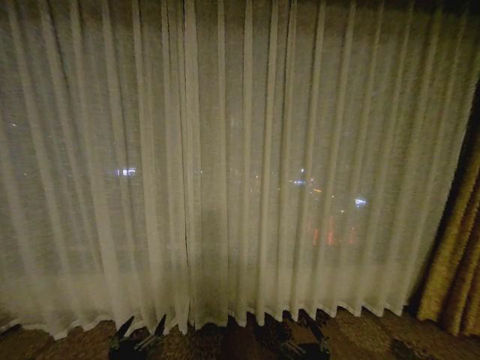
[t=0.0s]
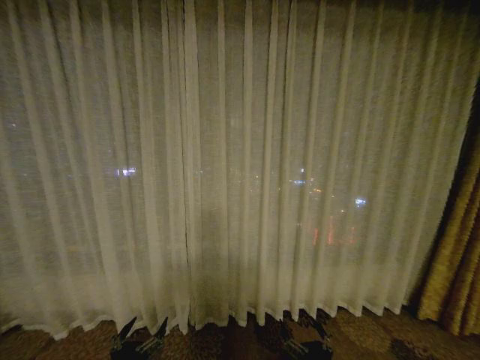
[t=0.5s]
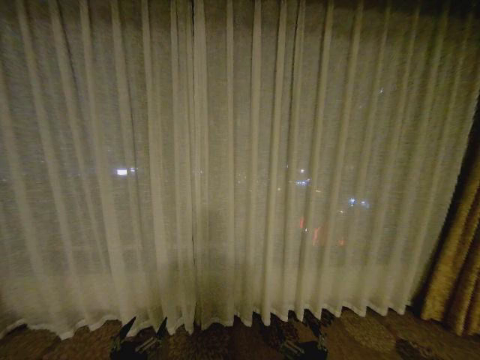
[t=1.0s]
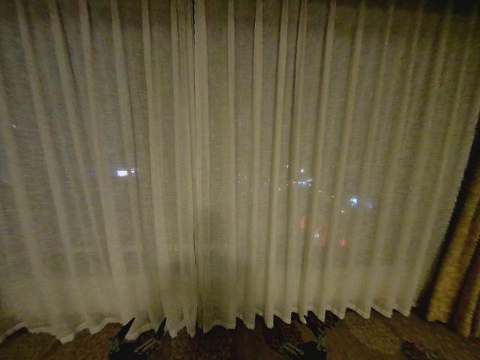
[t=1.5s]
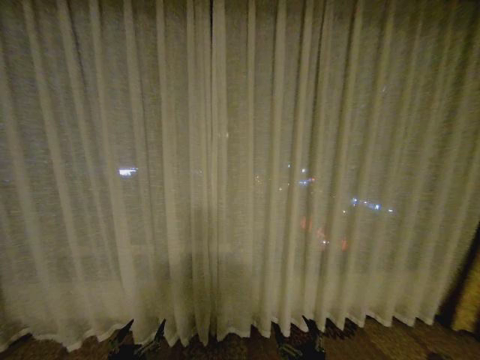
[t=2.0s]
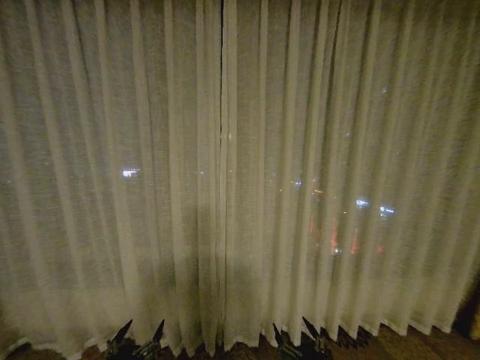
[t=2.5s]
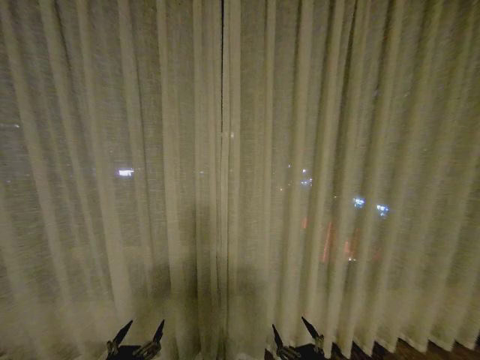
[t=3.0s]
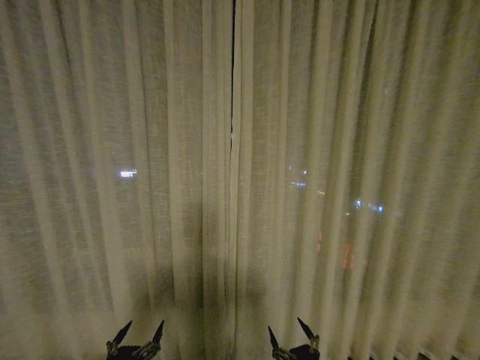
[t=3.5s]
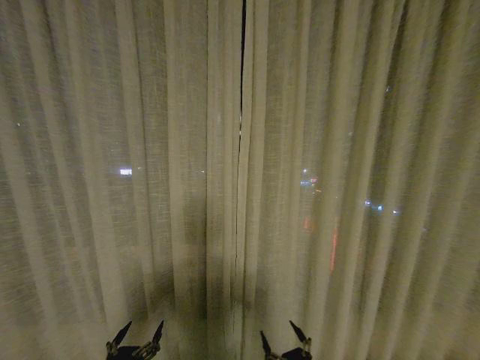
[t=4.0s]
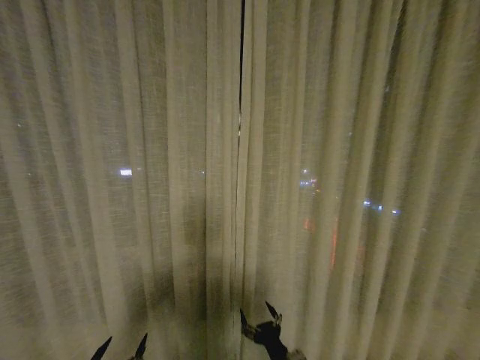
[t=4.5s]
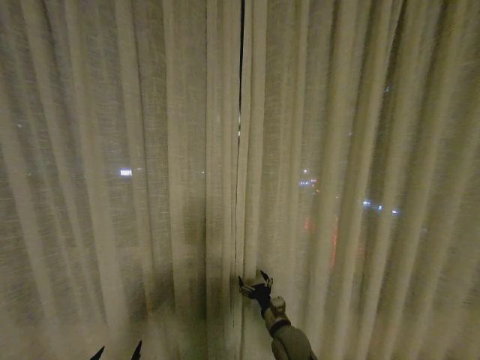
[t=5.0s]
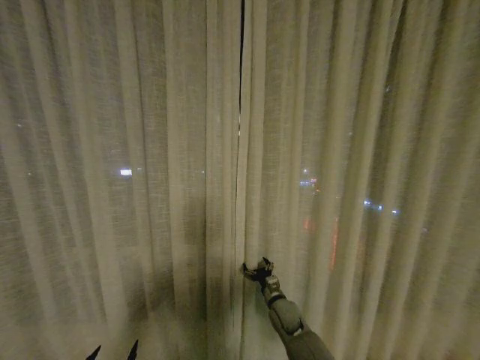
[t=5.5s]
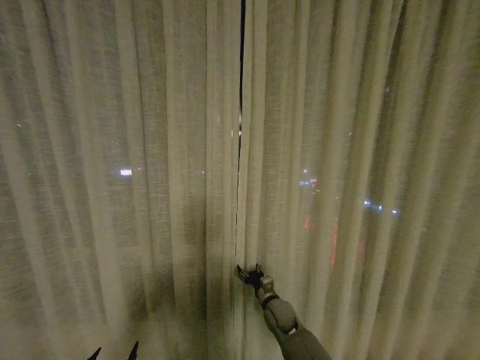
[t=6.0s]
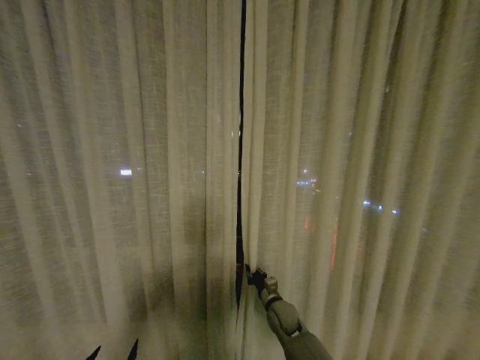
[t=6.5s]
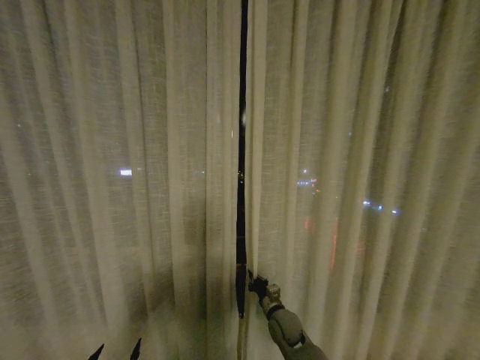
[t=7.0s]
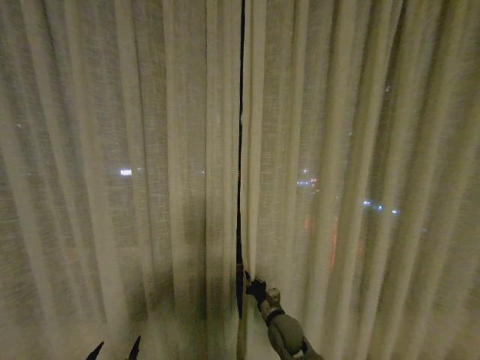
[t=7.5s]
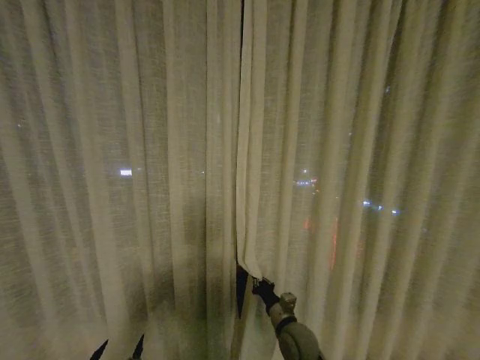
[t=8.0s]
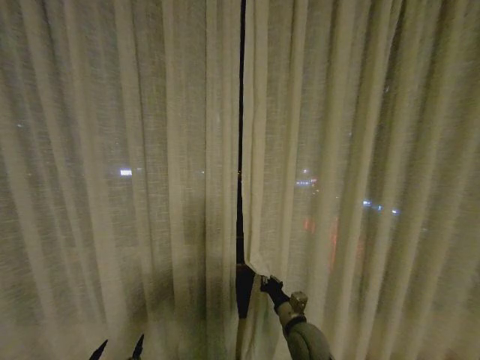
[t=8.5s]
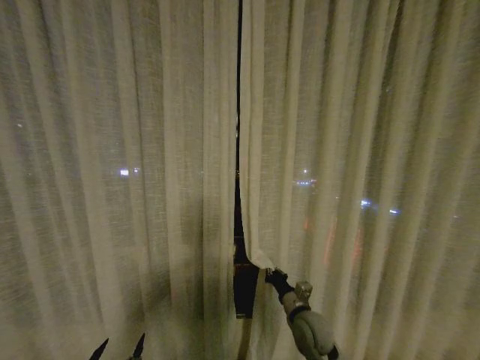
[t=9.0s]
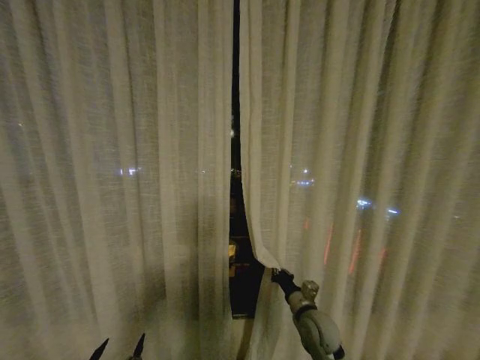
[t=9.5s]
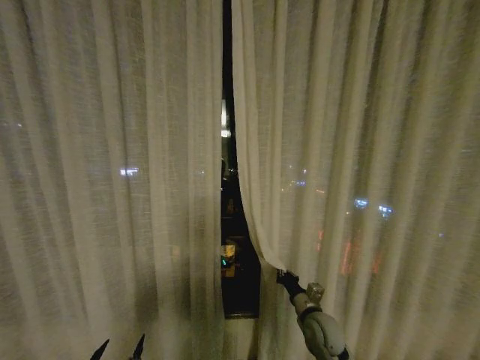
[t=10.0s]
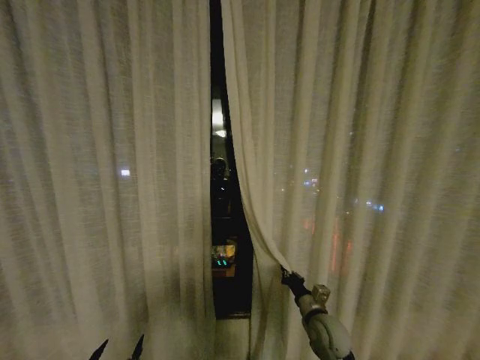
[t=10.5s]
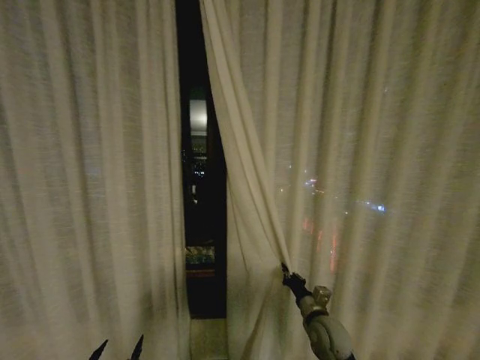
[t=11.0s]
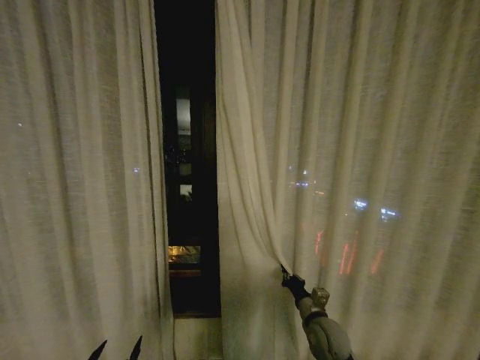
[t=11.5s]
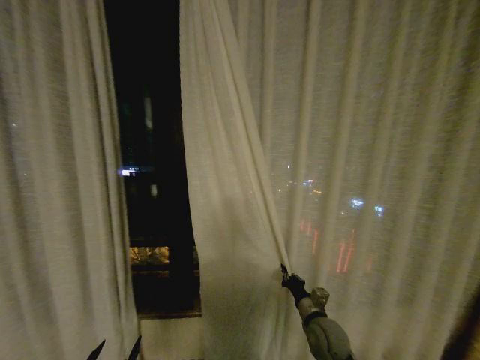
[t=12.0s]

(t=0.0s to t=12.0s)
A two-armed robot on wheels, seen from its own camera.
Task of the whole recording: Open the curtains by pulling them apart, changing their state from closed to fully open.
t=4.0s - t=6.0s: The right gripper heads forward, covering approximately 30 cm.
t=6.0s - t=8.0s: The right gripper goes roughly 10 cm backward, and closes up.
t=8.0s - t=10.0s: The right gripper travels to the right by some 5 cm.

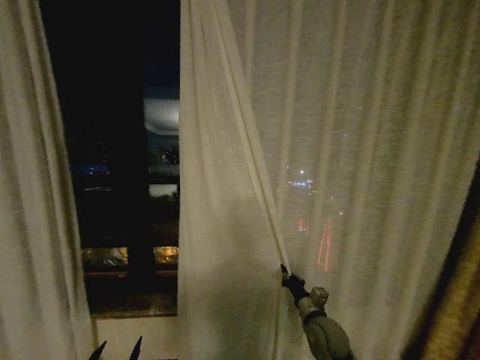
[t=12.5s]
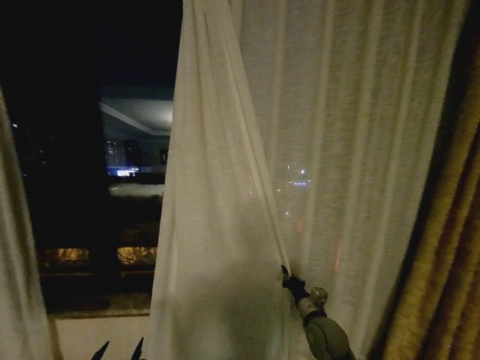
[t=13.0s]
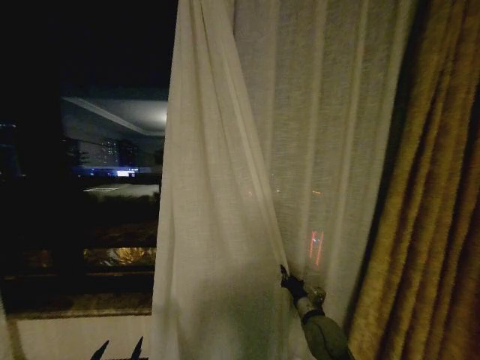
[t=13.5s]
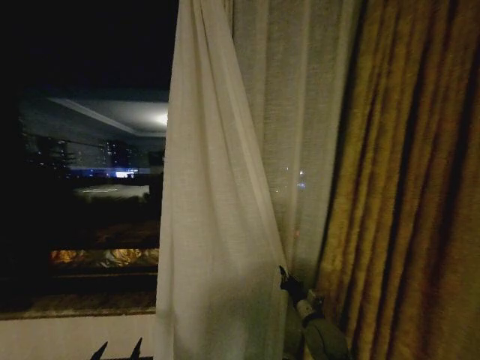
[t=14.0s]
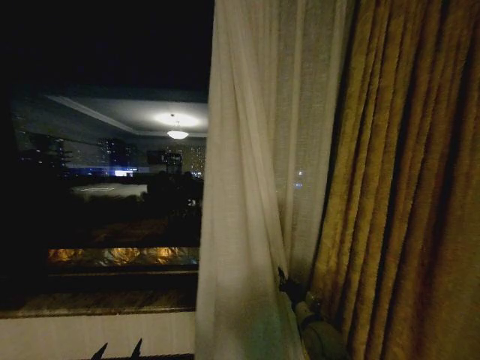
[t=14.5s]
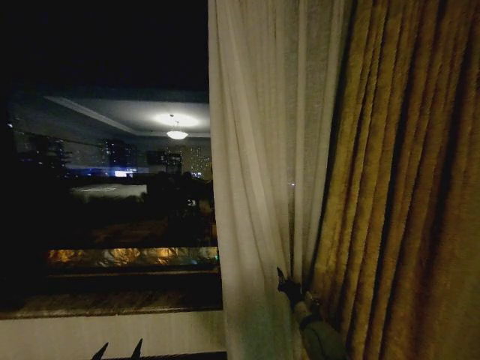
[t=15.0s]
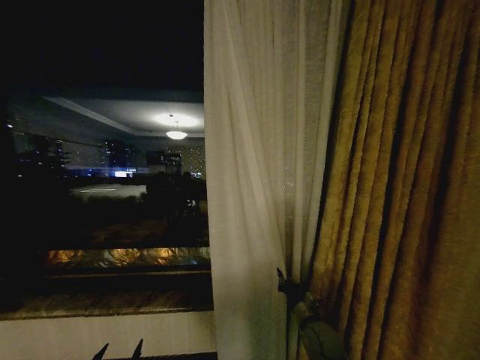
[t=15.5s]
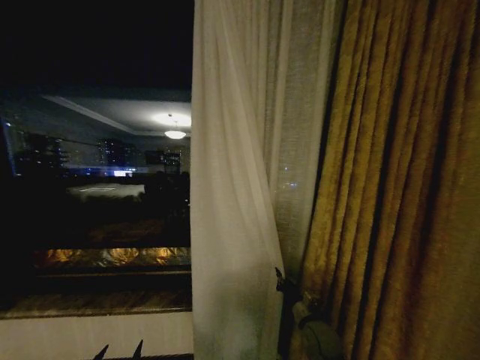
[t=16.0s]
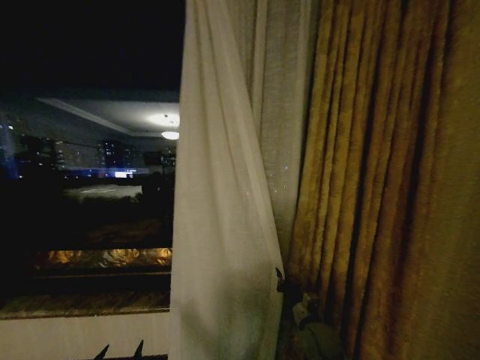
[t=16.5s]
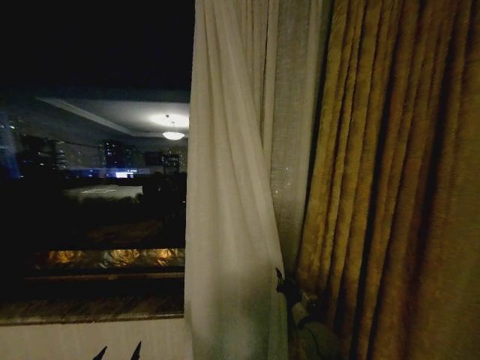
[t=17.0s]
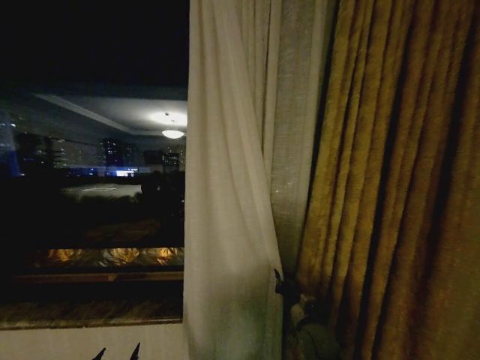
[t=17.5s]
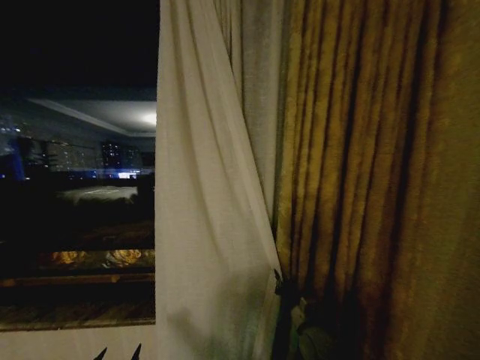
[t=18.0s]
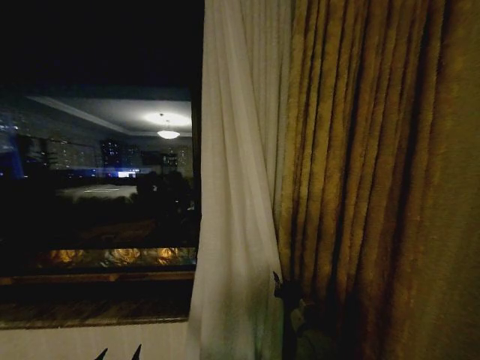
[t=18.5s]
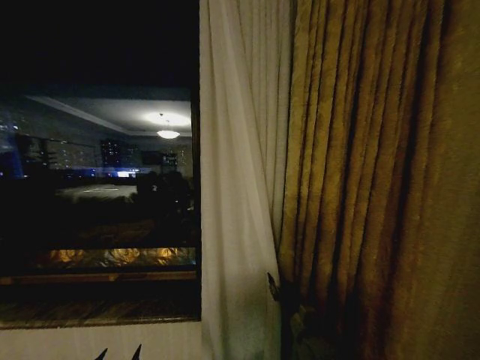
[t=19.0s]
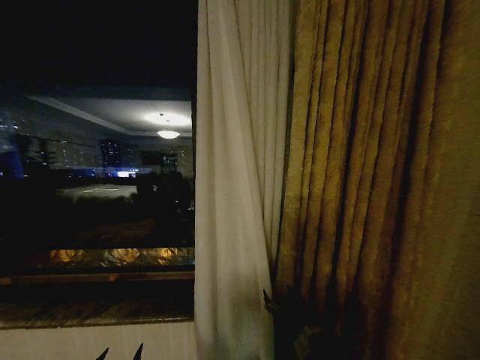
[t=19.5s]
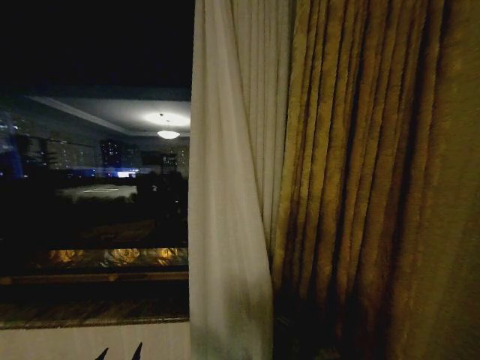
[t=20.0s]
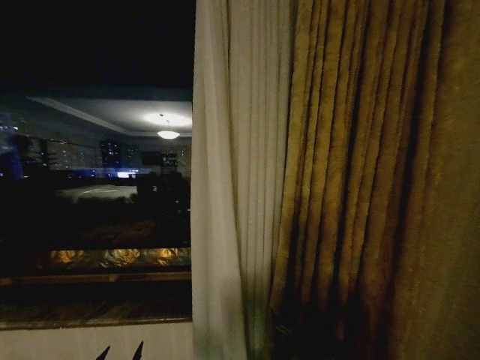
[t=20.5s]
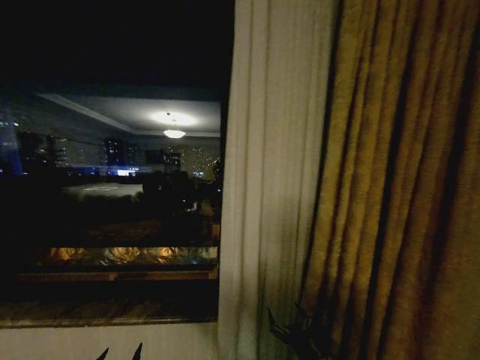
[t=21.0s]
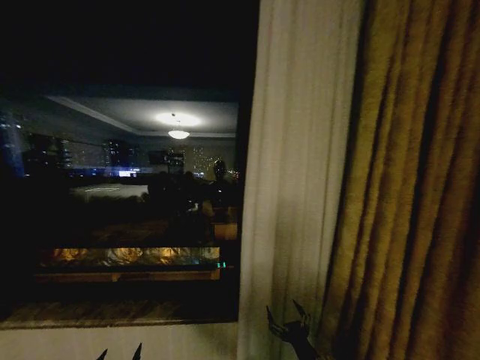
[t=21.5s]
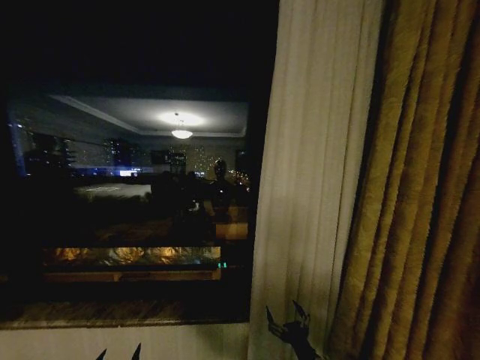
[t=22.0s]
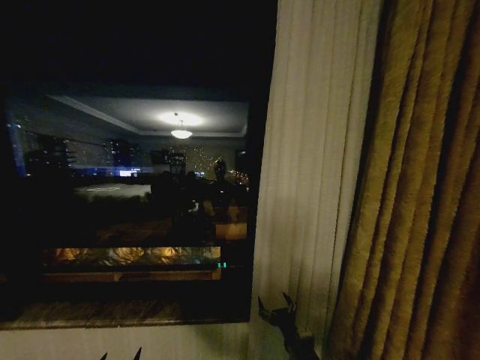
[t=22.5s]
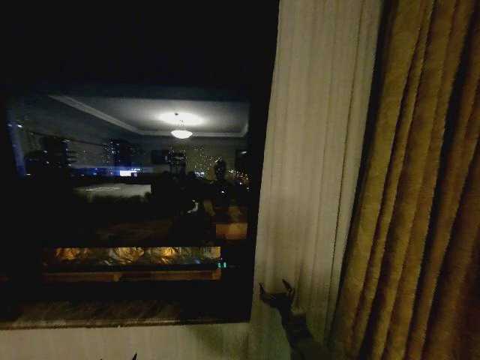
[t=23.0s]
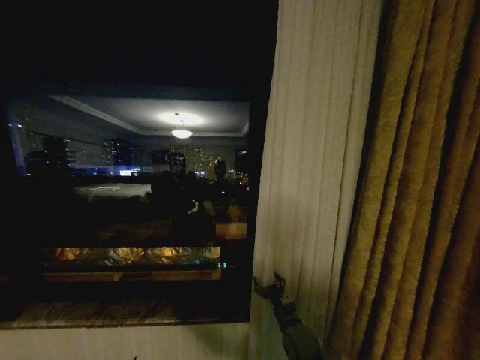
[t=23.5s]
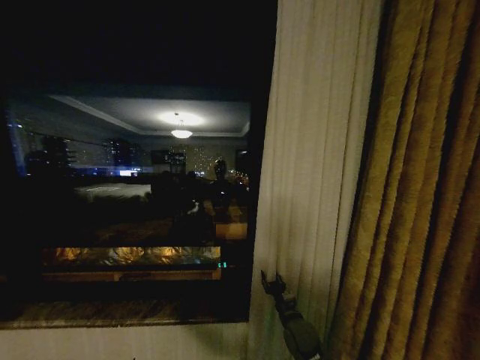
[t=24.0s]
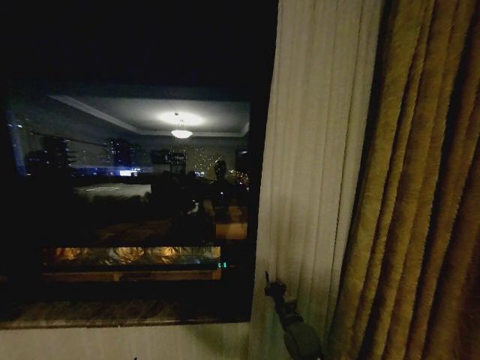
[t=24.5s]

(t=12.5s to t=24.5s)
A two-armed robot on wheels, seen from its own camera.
Task of the whole recording: Open the curtains by pulling them apart, changing their state from closed to fully open.
t=16.5s - t=18.5s: There are only small adjustments of the grippers.
t=18.5s - t=20.5s: The right gripper is displaced backward by approximately 15 cm, and opens its fingers.
t=20.5s - t=22.5s: The right gripper travels forward by approximately 5 cm.
t=22.5s - t=24.5s: The right gripper is displaced forward by roughly 10 cm, and closes.

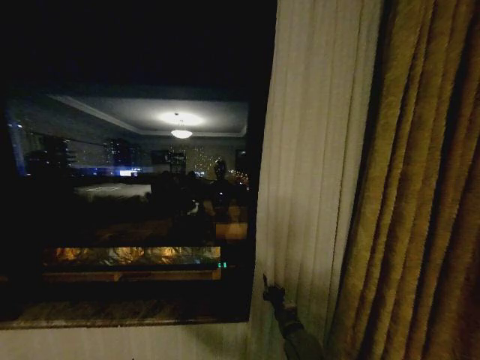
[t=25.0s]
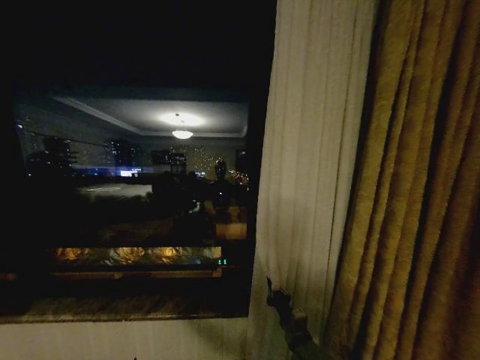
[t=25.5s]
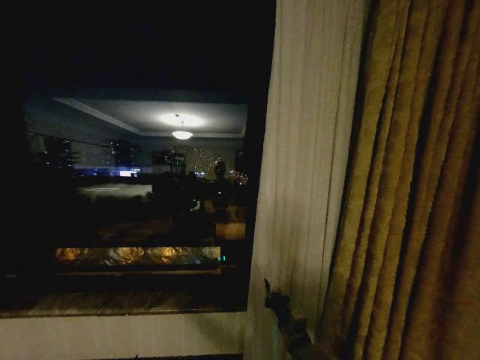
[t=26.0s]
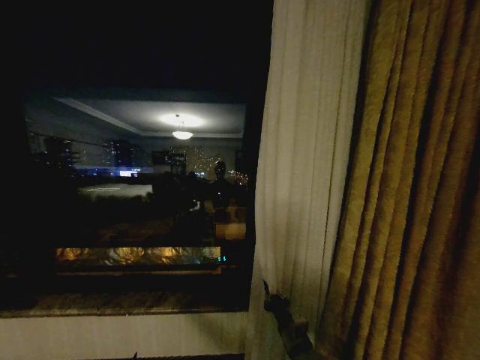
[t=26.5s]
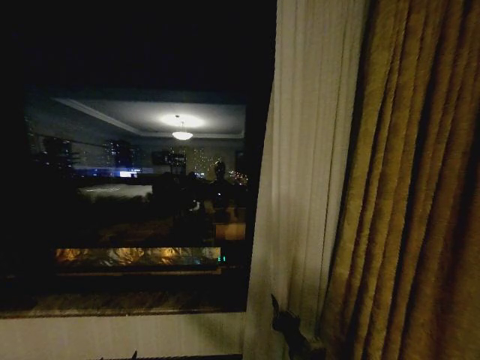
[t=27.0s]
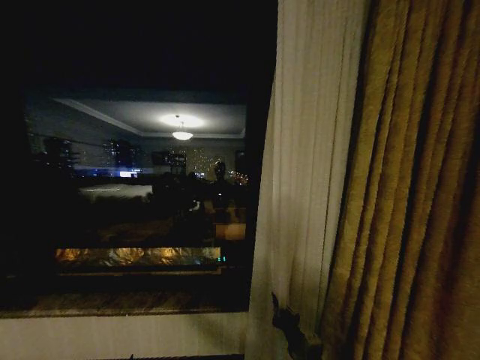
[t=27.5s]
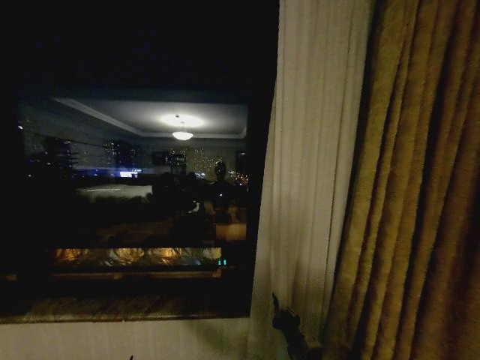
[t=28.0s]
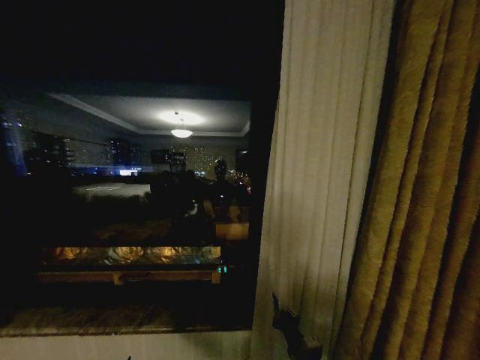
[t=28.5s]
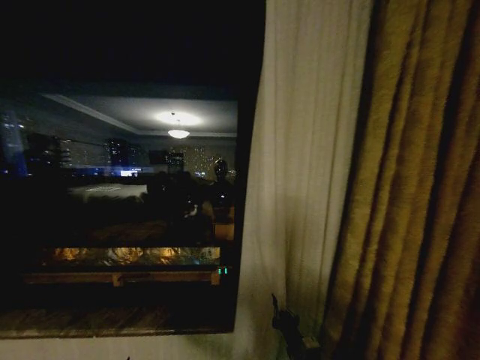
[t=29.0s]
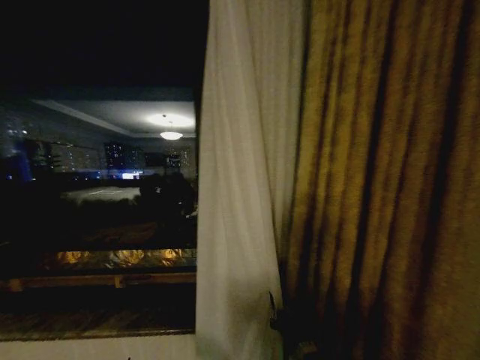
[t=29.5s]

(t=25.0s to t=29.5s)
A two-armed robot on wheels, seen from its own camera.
Task of the whole recording: Open the curtains by pulling them apart, changing their state from closed to fully open.
t=25.0s - t=27.0s: The right gripper heads backward, covering some 15 cm.
